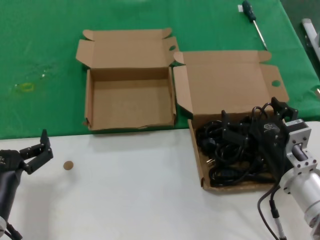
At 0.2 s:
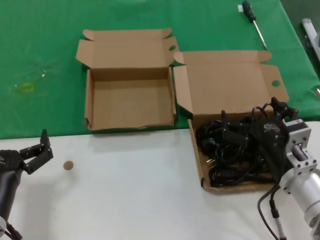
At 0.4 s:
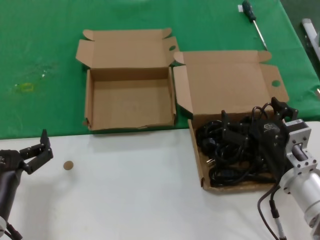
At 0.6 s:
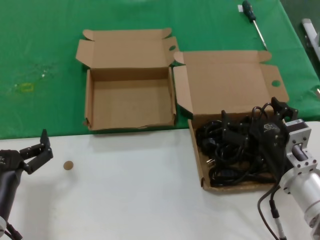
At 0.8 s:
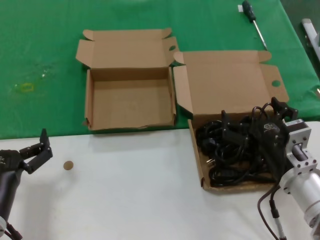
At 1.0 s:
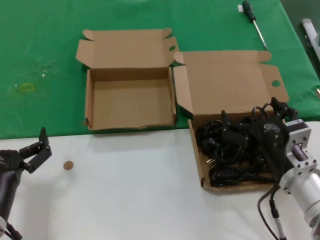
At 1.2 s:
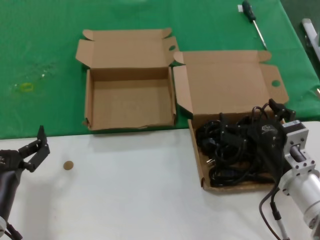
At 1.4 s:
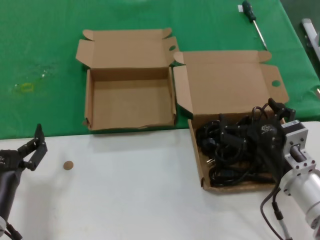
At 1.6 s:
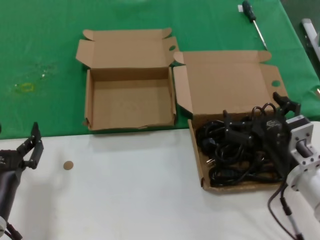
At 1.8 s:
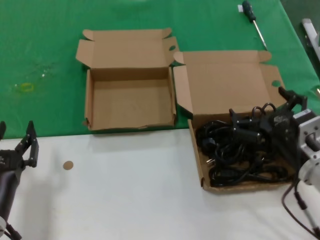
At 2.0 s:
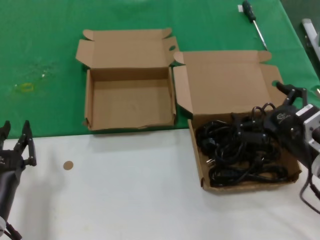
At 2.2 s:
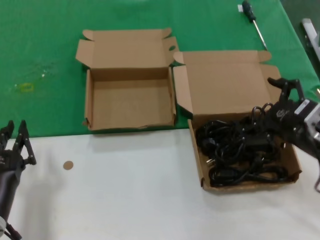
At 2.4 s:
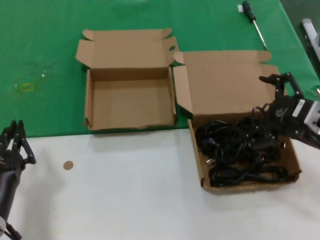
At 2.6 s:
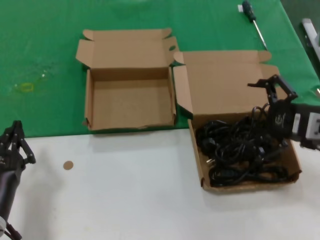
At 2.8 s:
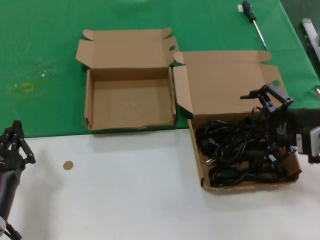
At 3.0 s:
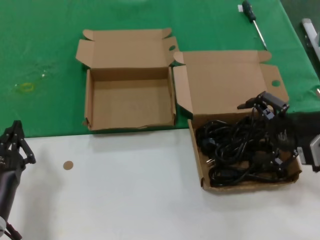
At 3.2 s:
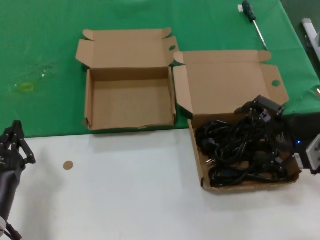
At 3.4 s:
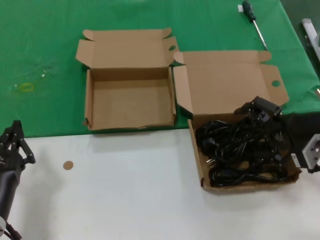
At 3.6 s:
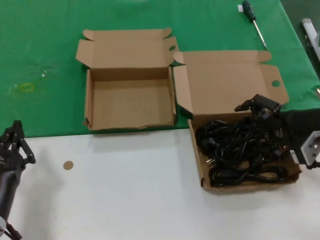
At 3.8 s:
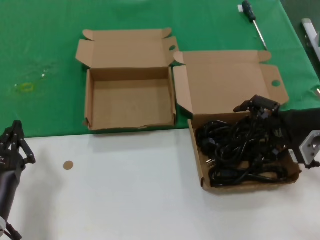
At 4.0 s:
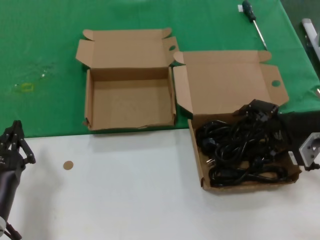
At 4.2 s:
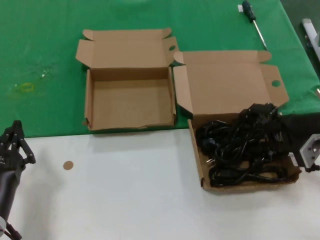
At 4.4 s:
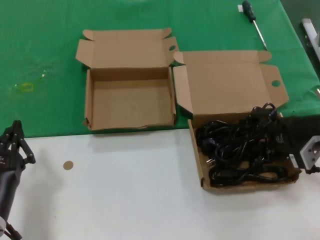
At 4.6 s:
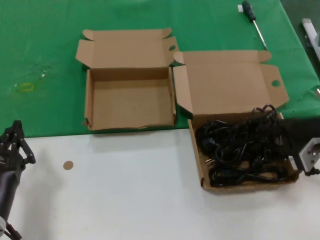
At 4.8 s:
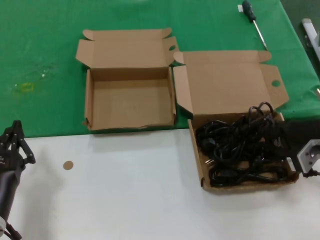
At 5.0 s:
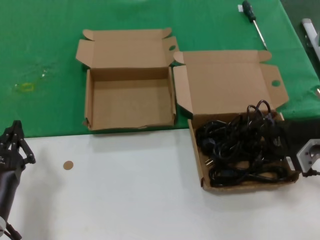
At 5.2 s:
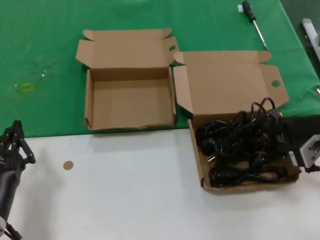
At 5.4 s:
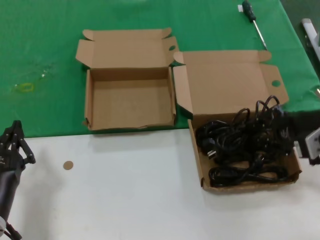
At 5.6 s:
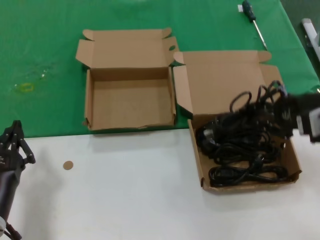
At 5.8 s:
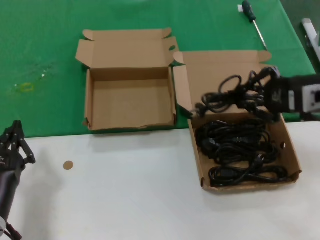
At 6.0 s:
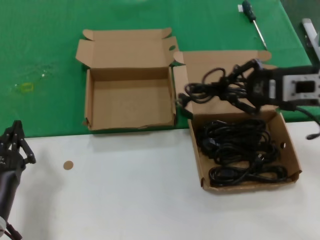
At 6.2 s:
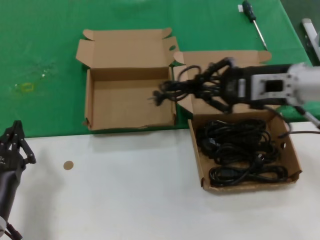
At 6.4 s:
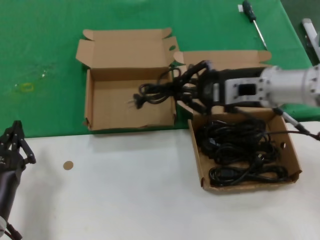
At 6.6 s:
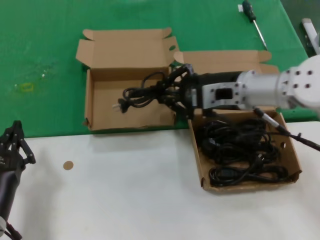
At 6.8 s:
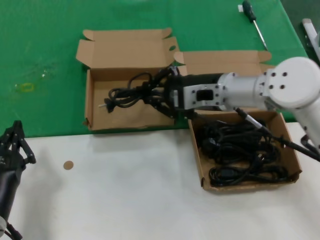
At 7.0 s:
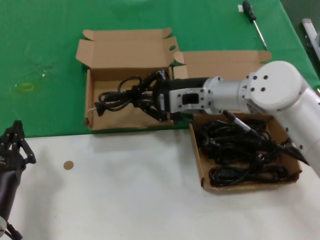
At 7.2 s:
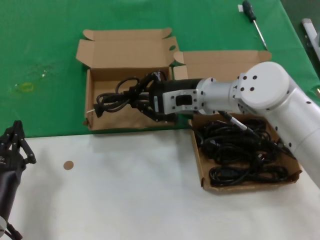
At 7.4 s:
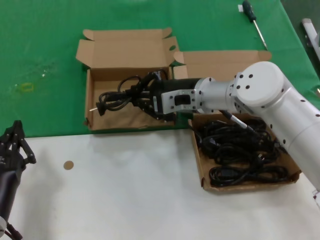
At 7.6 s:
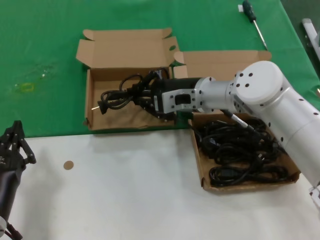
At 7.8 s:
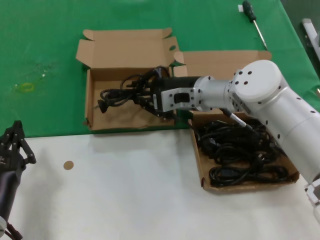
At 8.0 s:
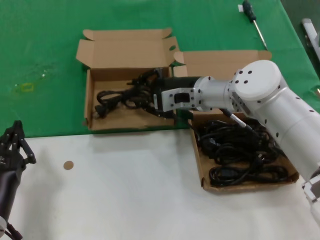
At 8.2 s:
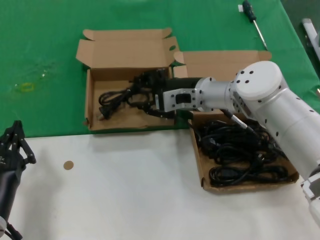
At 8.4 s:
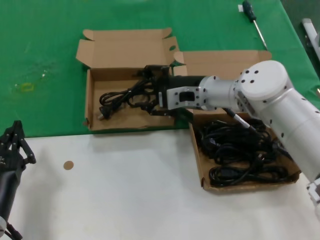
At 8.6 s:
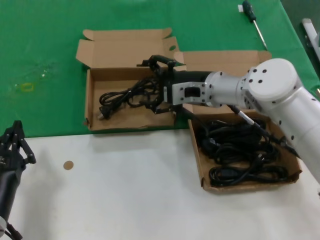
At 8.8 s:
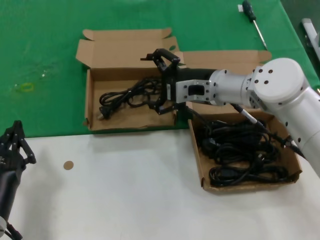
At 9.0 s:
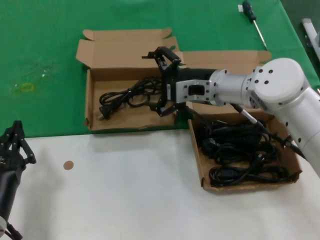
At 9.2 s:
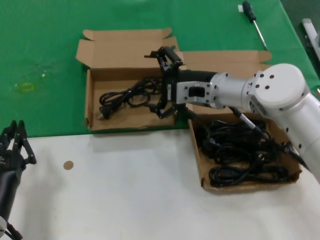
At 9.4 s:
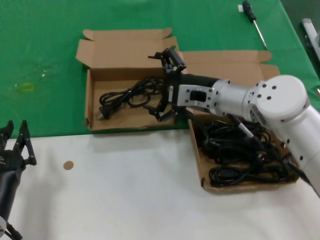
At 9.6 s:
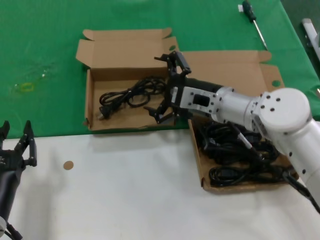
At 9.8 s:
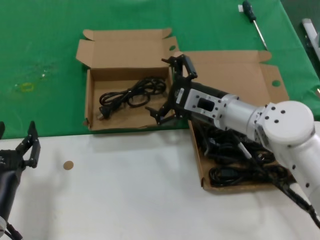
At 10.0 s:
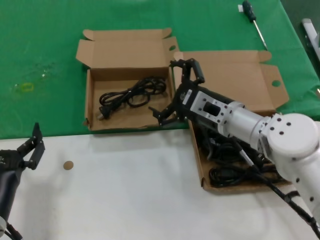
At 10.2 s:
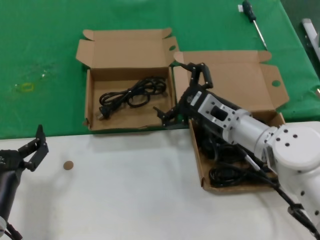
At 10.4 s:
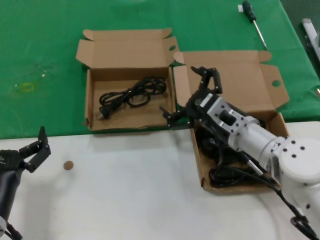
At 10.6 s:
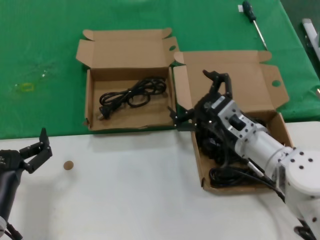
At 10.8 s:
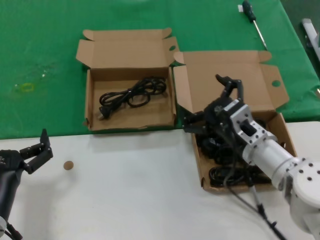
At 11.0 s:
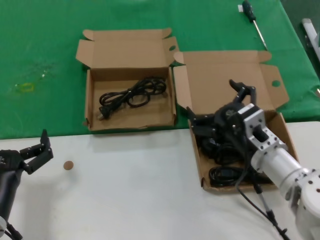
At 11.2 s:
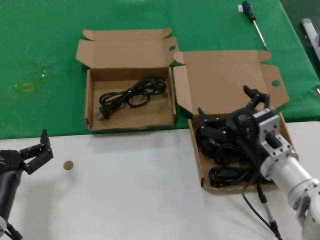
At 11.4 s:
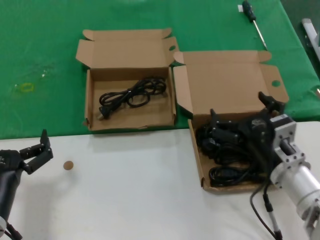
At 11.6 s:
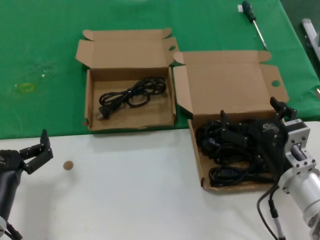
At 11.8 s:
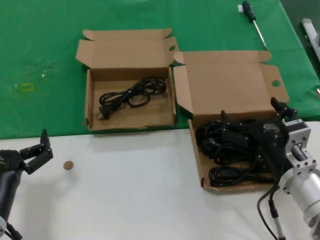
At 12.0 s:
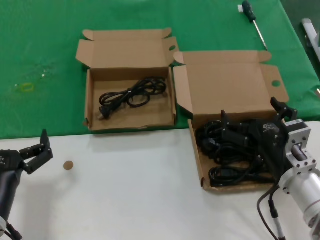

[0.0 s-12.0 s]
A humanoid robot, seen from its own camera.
Task of the whole recording: take the parts from the box containing them and put them into an empty box.
Step, 0.0 to 4.8 s: Grasp the data cable.
Step, 5.0 to 8.4 s: Place the data cable in the another box.
0.0 to 1.6 s: There are only small adjustments of the hands.
1.6 to 3.0 s: The right hand shifts some 15 cm upward, to the right and forward.
3.0 to 4.4 s: The hands stay close to where they were, moving slightly.
4.4 to 6.0 s: The right hand heads upward, covering about 10 cm.
6.0 to 7.6 s: The right hand moves to the left and forward, about 20 cm.
7.6 to 9.0 s: The hands stay close to where they were, moving slightly.
9.0 to 10.4 s: The right hand travels backward and downward by some 10 cm.
10.4 to 12.0 s: The right hand is displaced backward and to the right by approximately 10 cm.

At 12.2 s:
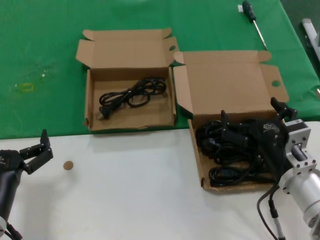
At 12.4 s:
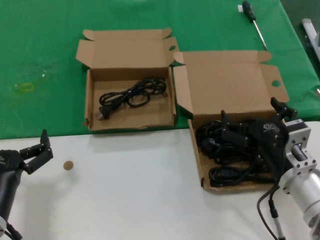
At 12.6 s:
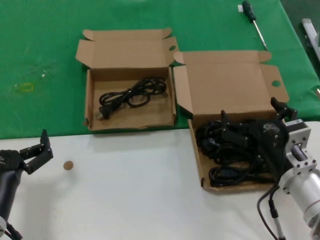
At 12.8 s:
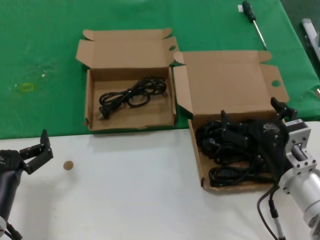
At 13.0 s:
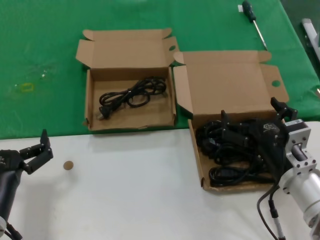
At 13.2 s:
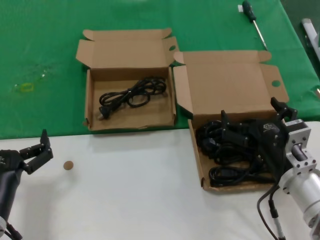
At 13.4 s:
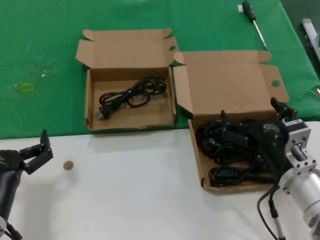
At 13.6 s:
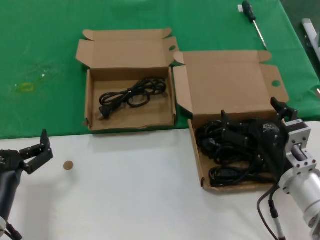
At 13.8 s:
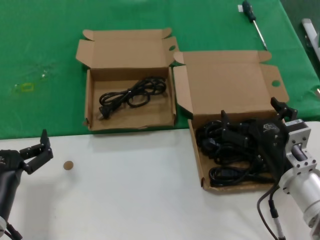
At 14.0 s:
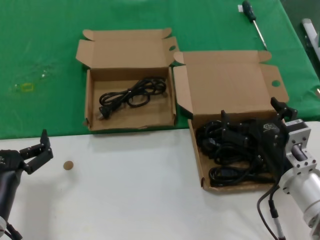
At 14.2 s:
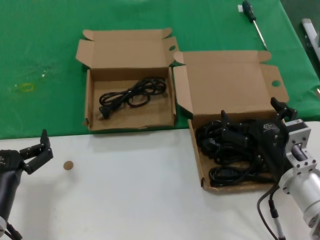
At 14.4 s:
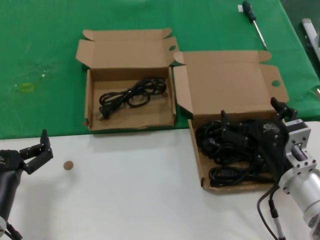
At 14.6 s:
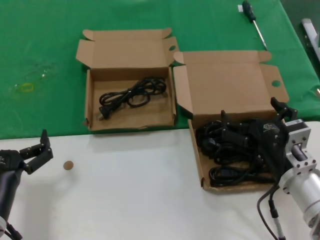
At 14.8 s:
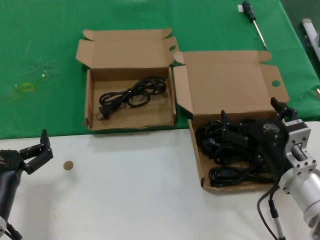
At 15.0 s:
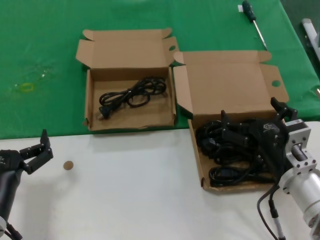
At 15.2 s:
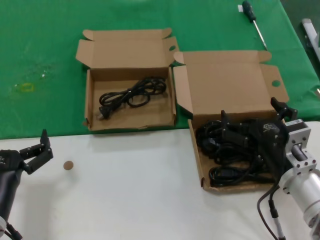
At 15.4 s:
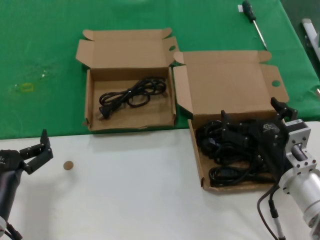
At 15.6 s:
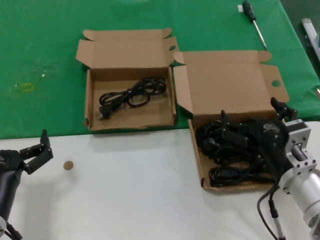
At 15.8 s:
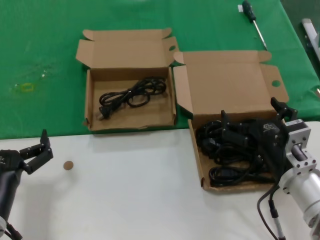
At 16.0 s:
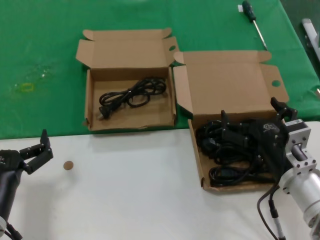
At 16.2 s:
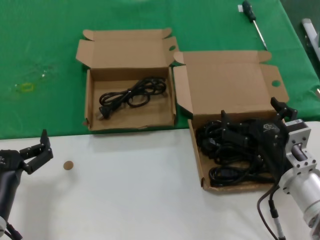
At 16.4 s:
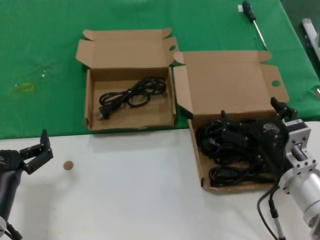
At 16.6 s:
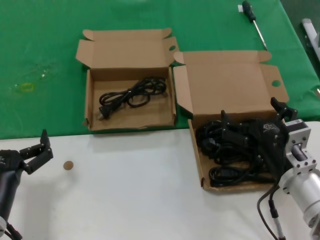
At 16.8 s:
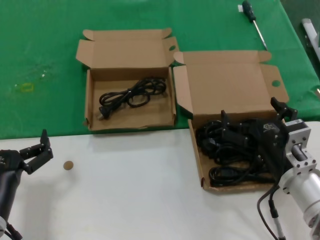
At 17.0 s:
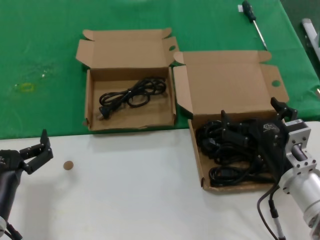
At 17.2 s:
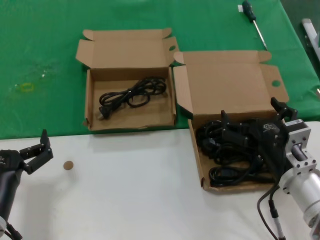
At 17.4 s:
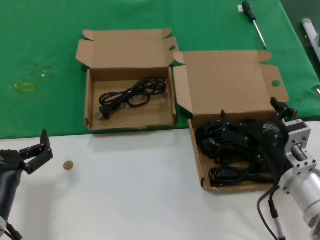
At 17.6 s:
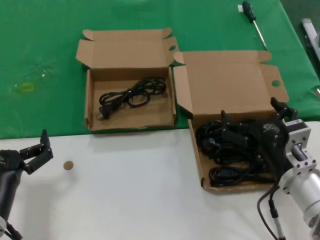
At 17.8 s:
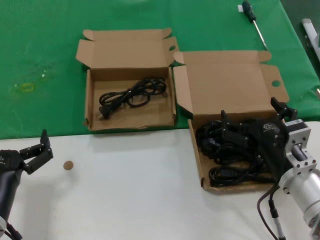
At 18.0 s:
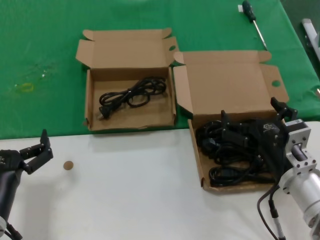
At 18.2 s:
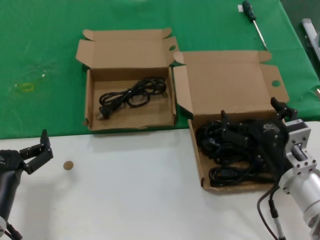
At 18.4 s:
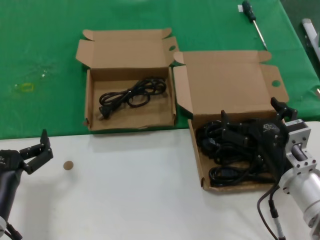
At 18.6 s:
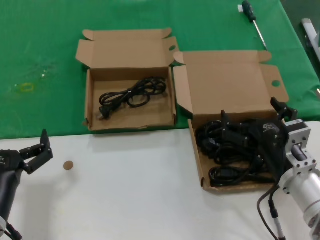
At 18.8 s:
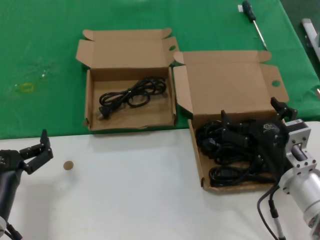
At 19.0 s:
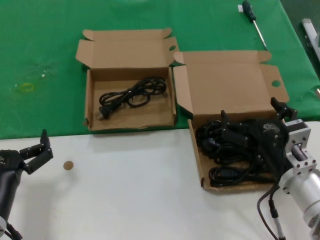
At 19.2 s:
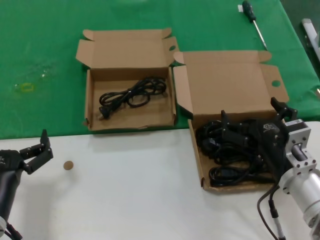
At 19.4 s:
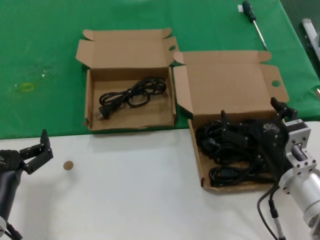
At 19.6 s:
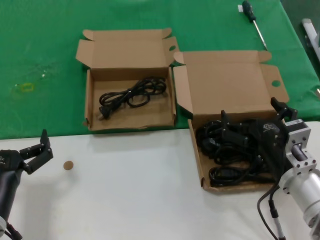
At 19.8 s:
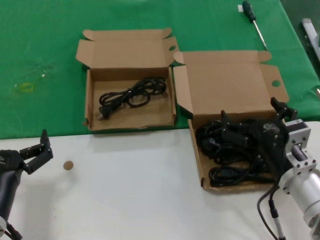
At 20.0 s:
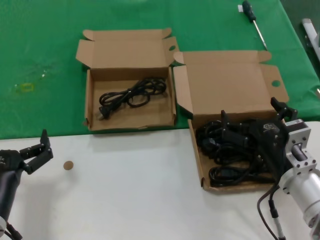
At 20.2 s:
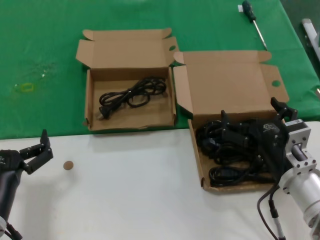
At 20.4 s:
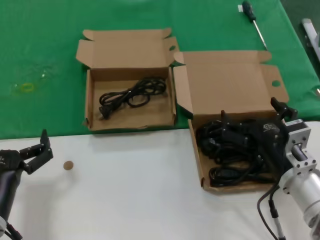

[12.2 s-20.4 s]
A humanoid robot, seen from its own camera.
Task of the whole recording: take the parts from the box containing them and put them into an empty box.
12.2 to 20.4 s: Both hands stay put.
